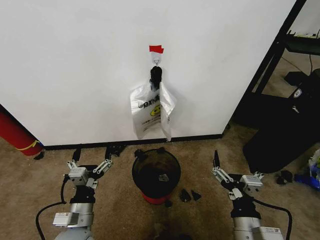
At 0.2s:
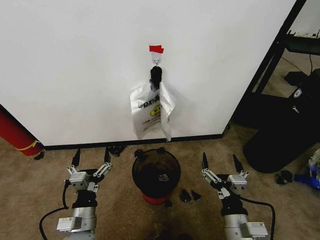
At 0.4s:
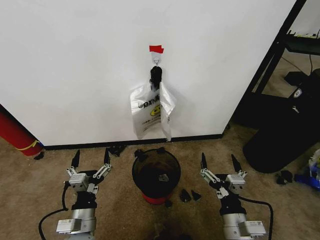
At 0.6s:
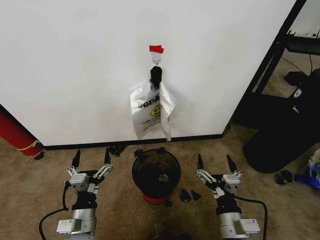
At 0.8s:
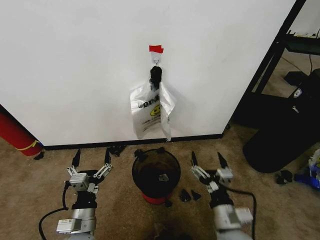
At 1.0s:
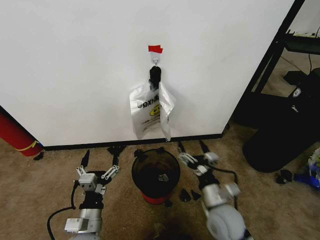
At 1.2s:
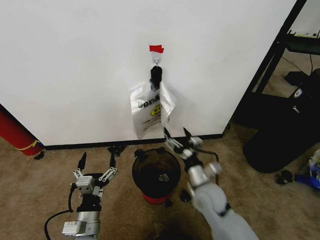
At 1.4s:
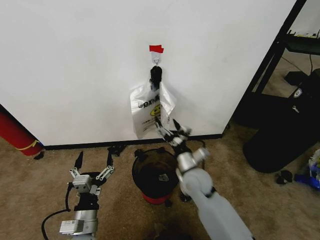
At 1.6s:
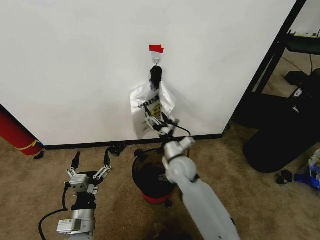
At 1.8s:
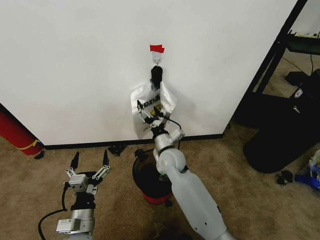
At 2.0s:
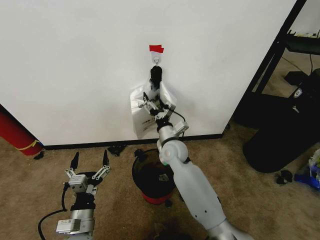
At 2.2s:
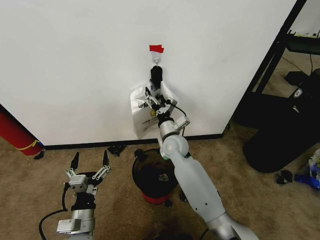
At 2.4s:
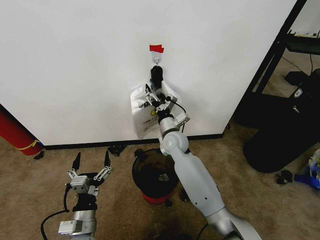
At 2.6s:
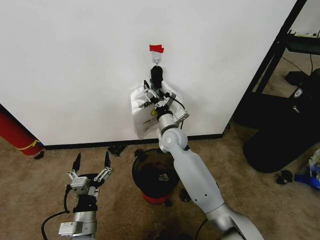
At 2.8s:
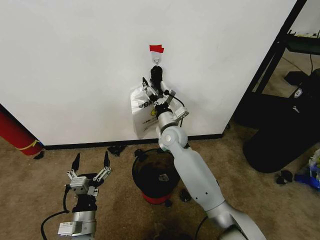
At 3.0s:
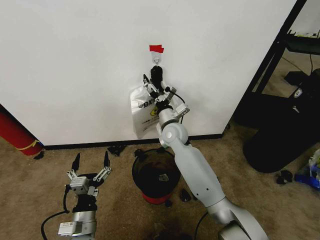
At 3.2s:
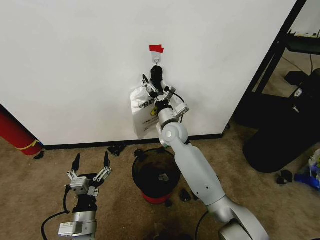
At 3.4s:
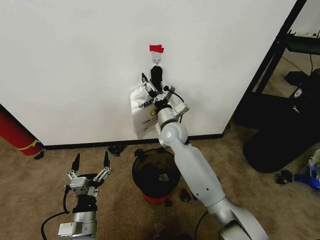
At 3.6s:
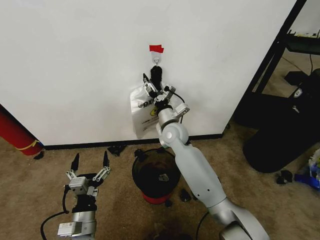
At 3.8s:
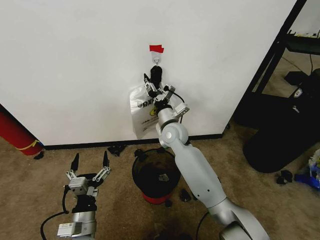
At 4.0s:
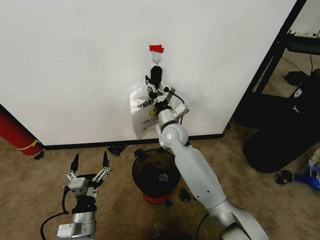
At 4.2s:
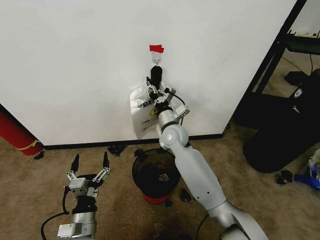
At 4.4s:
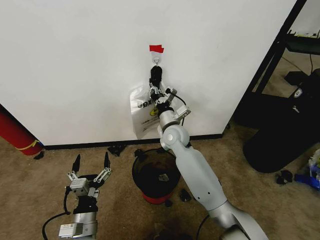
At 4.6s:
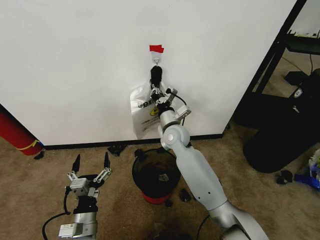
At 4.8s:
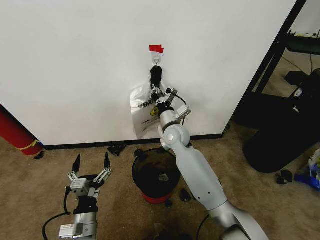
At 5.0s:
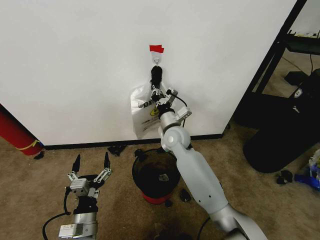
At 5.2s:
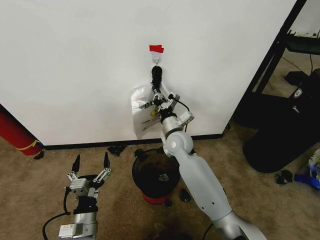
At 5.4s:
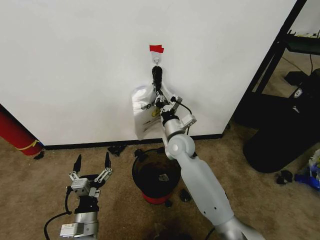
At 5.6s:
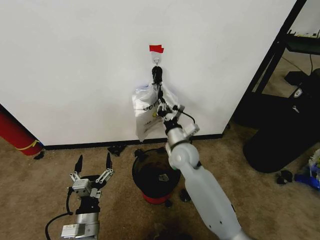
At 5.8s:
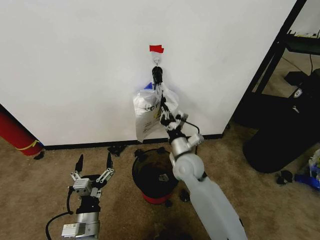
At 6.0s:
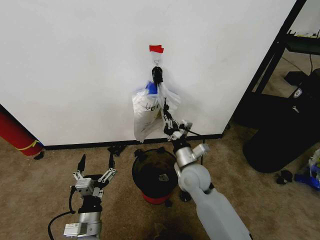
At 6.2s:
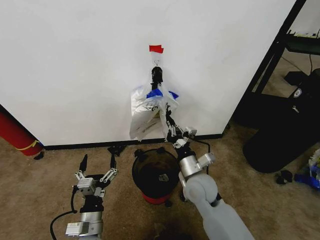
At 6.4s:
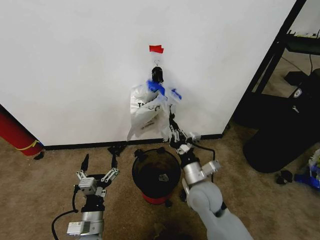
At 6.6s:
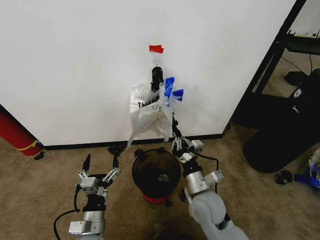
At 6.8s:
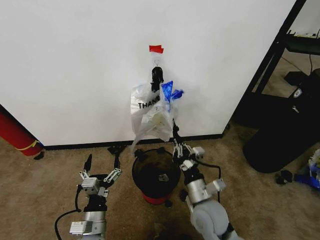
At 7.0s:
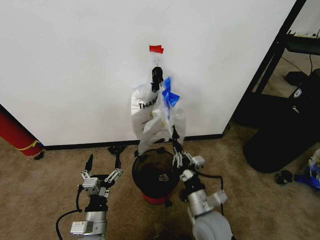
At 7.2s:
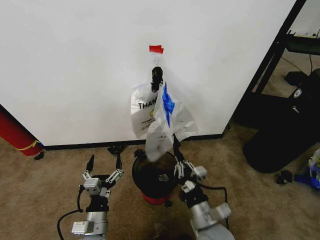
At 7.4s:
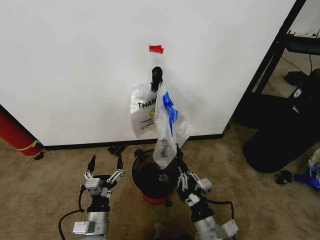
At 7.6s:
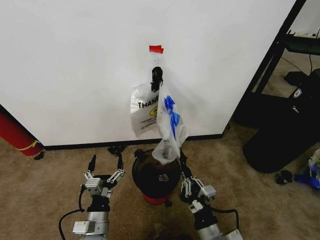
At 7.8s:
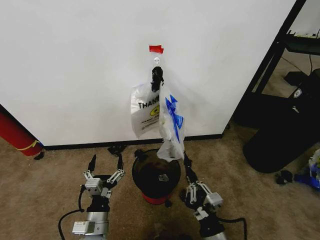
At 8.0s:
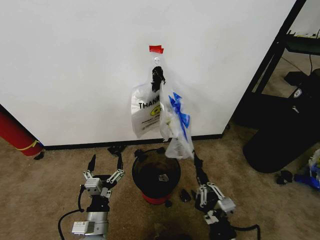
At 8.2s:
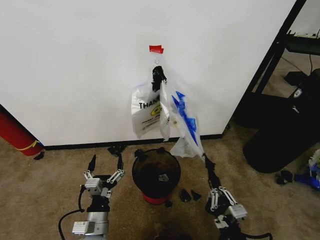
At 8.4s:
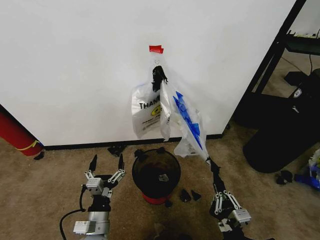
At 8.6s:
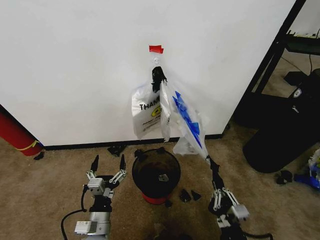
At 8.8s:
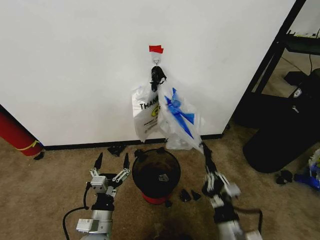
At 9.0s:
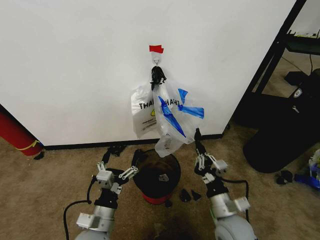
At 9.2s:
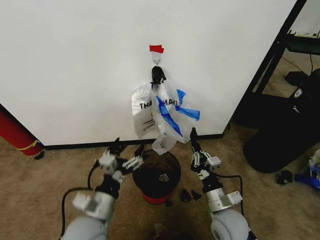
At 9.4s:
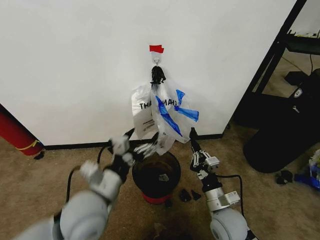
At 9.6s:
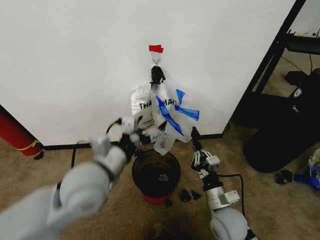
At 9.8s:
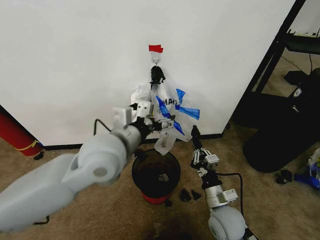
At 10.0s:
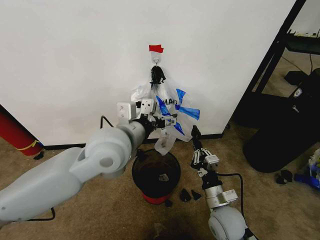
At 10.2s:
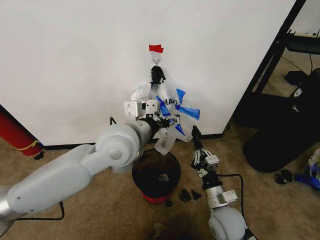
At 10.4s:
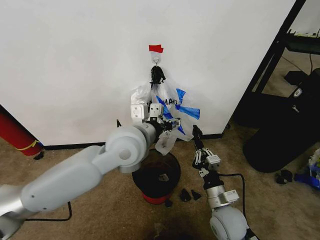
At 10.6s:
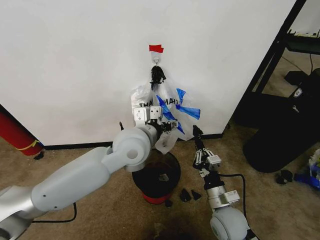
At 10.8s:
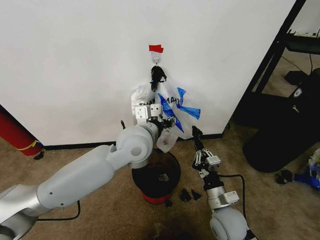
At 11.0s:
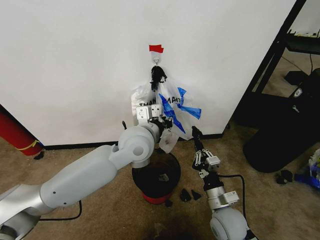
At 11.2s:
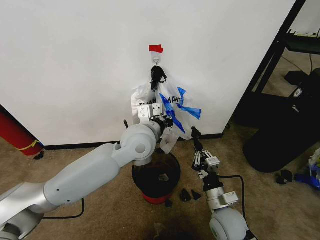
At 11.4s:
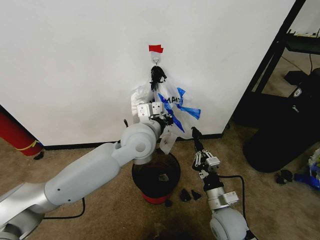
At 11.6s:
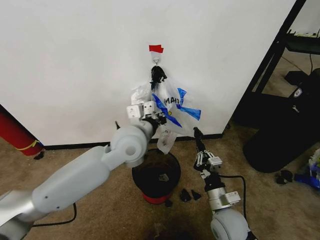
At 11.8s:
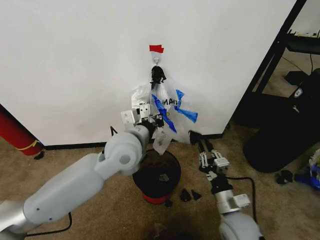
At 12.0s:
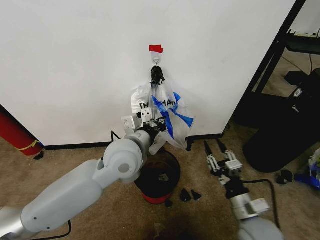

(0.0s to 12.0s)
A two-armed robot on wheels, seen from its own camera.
Task of the whole recording: Pick up the garbage bag from the wall and place it over the trash bin.
1.6s - 3.0s: The right gripper shifts some 15 cm forward and upward.
3.0s - 4.4s: The right gripper closes.
4.4s - 6.0s: The right gripper heads backward, downward and to the right, covering roughly 15 cm.
6.0s - 7.6s: The right gripper shifts some 20 cm backward.
7.6s - 9.0s: The right gripper goes approximately 5 cm forward.
9.0s - 10.4s: The left gripper shifts roughly 30 cm upward and forward.
10.4s - 12.0s: The right gripper goes some 5 cm to the right, and opens up; the left gripper closes up.

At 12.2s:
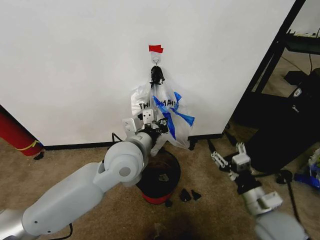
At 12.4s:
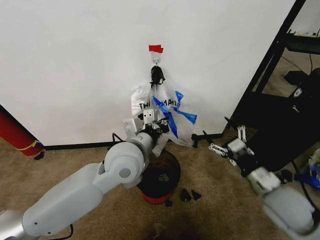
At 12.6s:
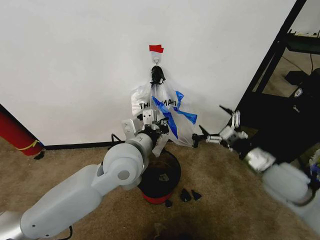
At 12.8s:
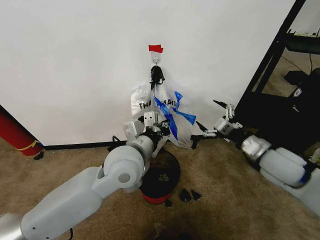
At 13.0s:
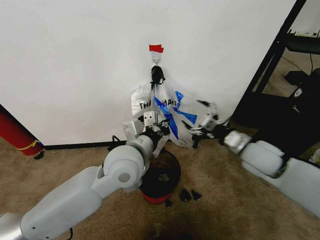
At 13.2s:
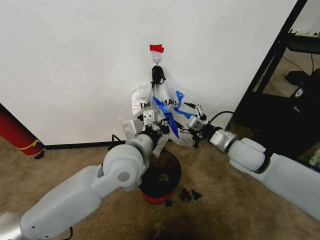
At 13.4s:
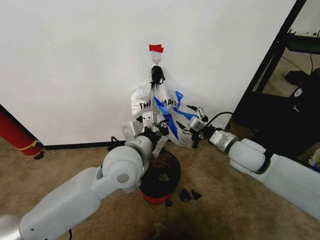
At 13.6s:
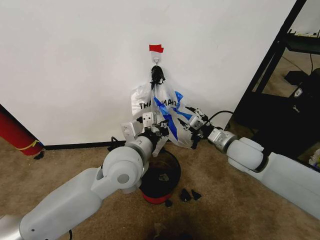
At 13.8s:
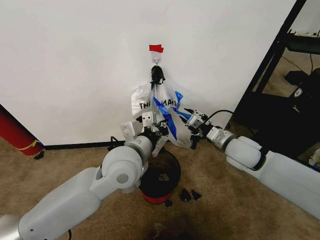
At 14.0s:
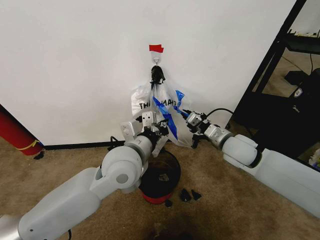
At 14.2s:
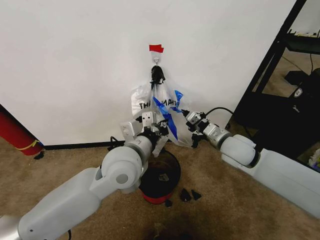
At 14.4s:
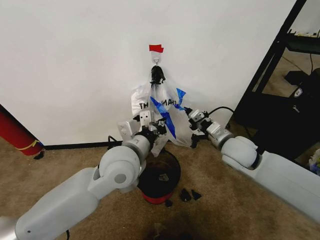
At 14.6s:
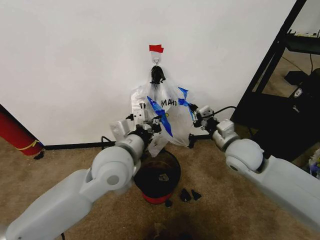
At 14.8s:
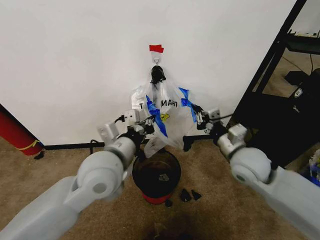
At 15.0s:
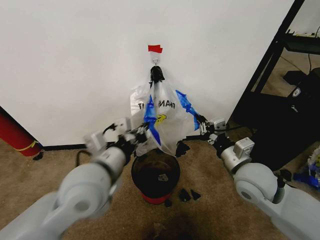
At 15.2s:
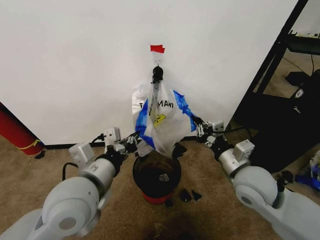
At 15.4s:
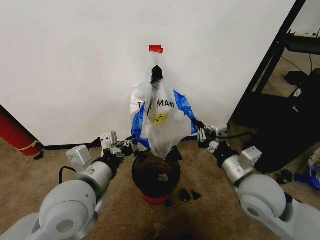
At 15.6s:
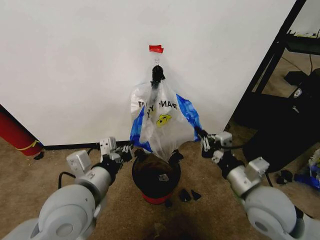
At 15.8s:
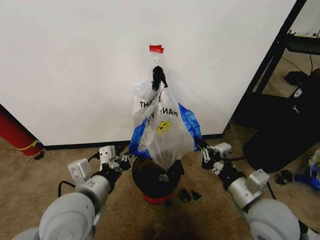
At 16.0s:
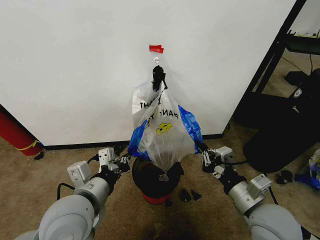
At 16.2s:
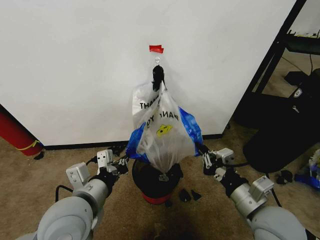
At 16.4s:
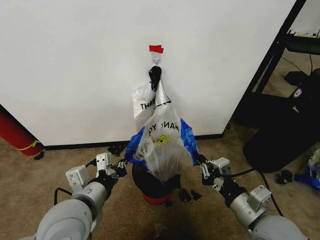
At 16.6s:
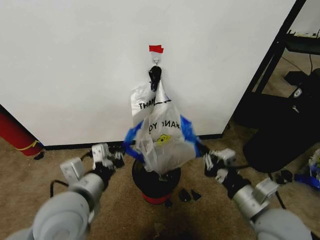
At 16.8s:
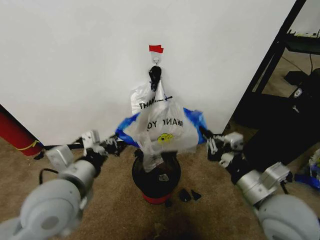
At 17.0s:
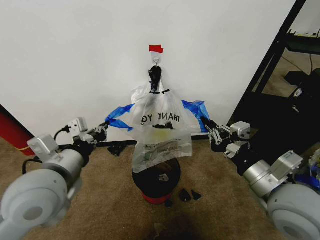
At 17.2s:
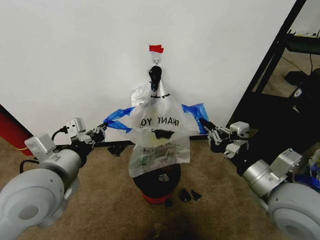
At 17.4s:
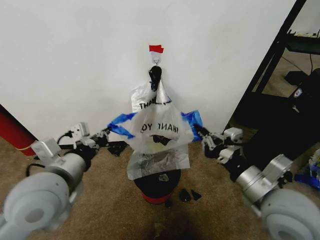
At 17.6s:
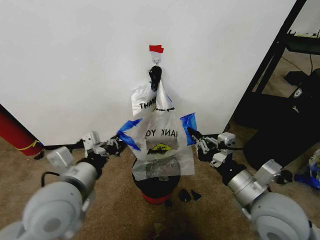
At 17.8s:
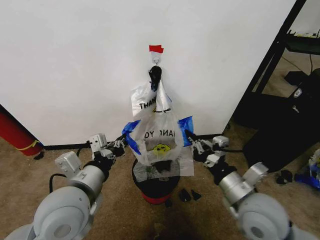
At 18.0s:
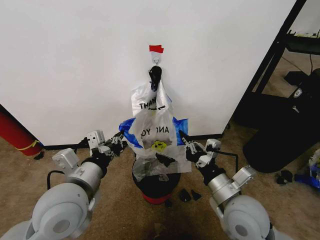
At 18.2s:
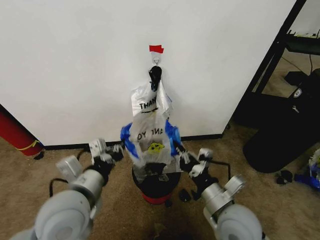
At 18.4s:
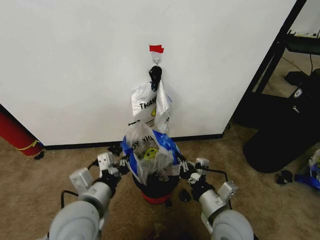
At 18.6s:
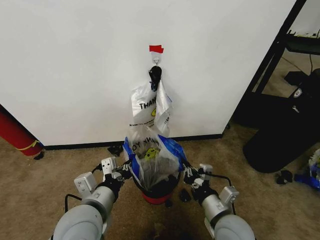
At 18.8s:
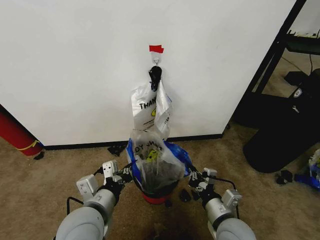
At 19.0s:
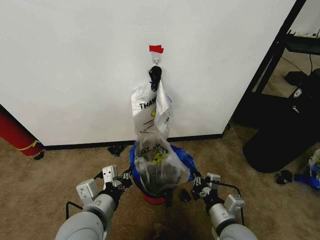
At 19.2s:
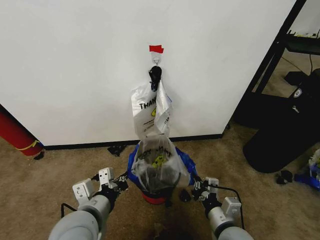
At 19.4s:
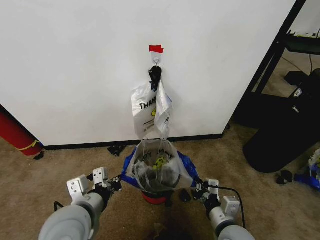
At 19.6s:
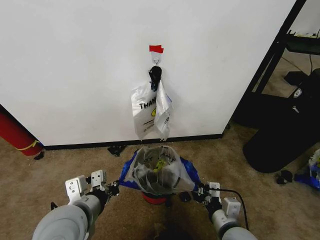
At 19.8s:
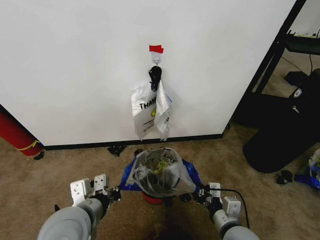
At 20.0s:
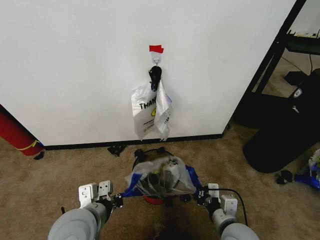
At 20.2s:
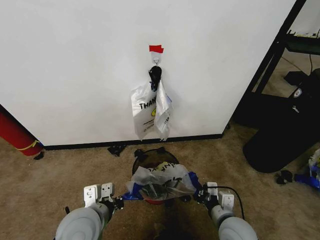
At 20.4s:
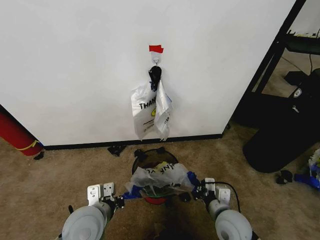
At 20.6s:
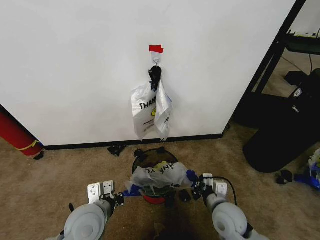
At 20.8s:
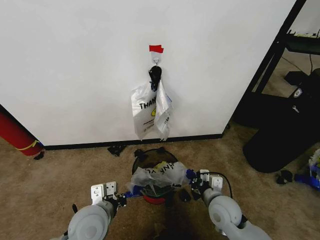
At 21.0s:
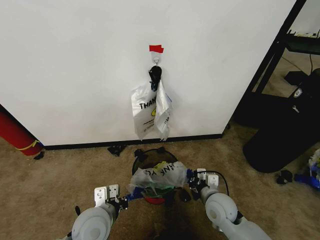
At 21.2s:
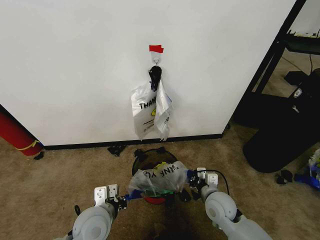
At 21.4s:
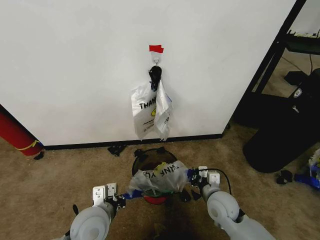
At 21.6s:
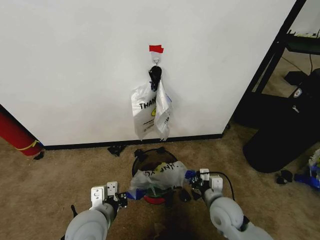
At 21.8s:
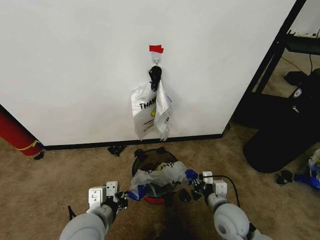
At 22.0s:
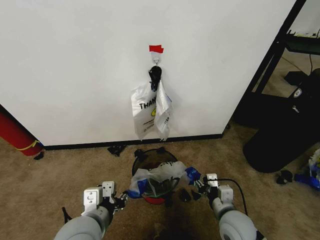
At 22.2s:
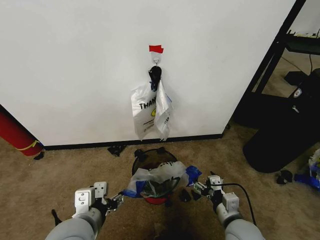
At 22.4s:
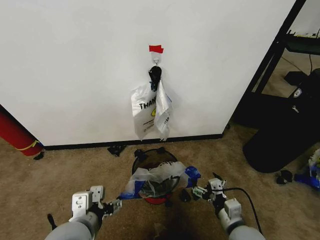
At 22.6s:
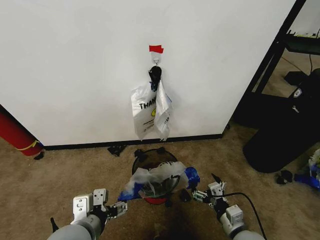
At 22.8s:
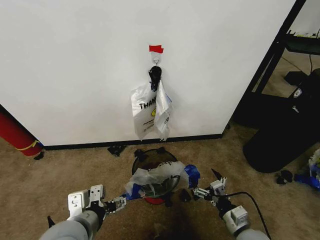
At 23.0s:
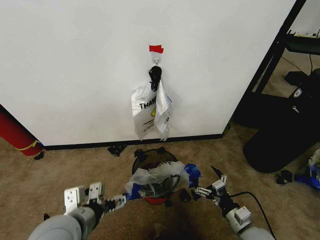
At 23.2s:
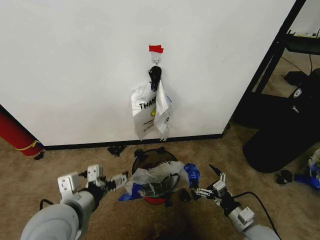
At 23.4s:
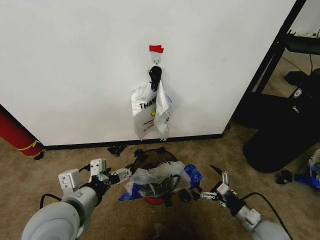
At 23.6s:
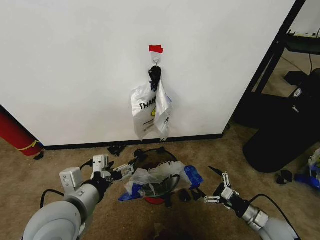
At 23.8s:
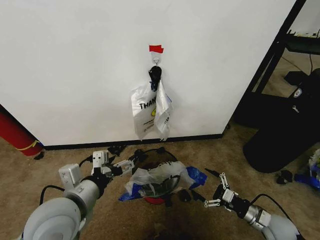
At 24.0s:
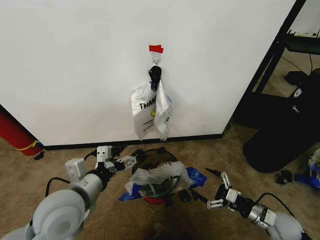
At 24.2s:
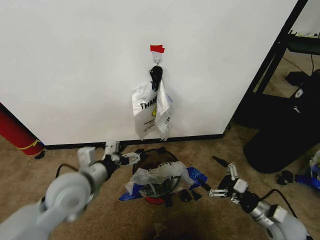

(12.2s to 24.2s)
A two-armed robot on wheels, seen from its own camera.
Task of the whole recording: Pick up the garbage bag from the wall and place it over the trash bin.
12.2s - 13.8s: The right gripper moves forward, some 20 cm, and opens, then closes once more.
13.8s - 15.2s: The right gripper is displaced backward by approximately 10 cm. The left gripper moves backward and to the left, approximately 10 cm.
15.2s - 16.6s: The right gripper travels backward by about 10 cm.
16.6s - 18.2s: The right gripper goes some 5 cm to the left.
18.2s - 19.8s: The right gripper heads downward, covering some 5 cm.
19.8s - 21.2s: The left gripper heads downward, covering about 10 cm. The right gripper shifts roughly 15 cm forward and downward.
21.2s - 22.6s: The right gripper goes approximately 15 cm backward and to the right, and opens. Meanwhile the left gripper heads upward and backward, covering approximately 10 cm, and opens up.
22.6s - 24.2s: The right gripper travels to the right and forward by approximately 15 cm. Meanwhile the left gripper is displaced forward by about 10 cm.
